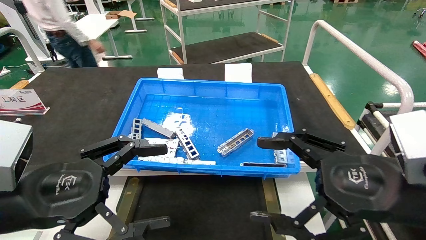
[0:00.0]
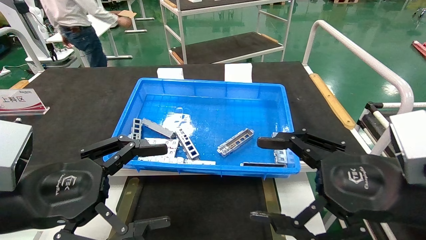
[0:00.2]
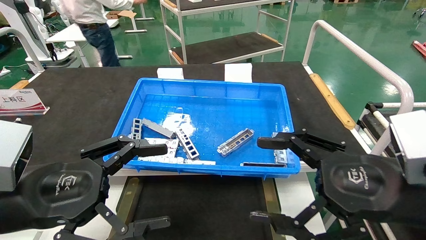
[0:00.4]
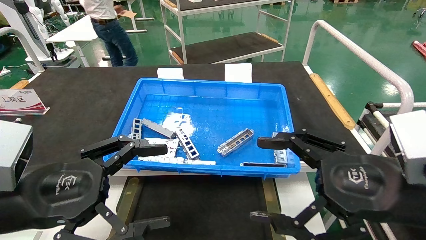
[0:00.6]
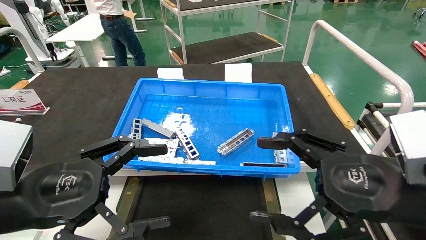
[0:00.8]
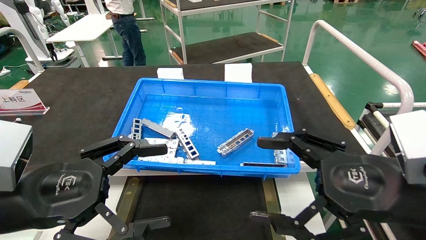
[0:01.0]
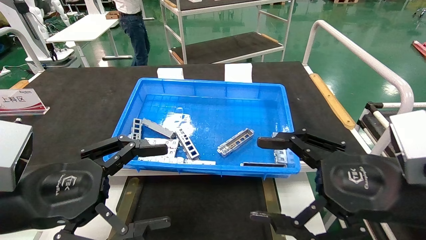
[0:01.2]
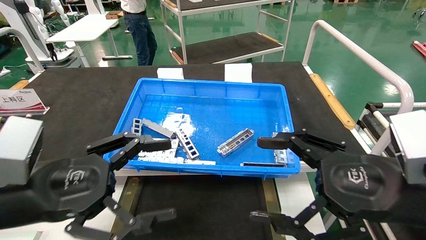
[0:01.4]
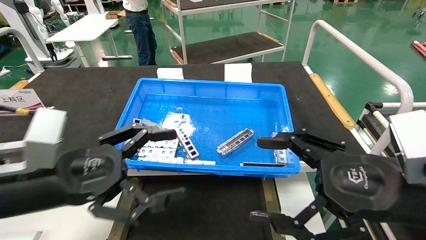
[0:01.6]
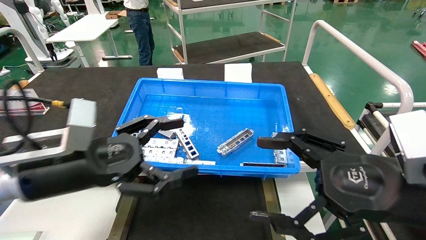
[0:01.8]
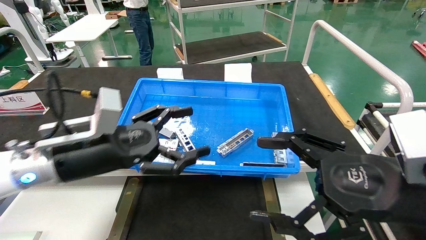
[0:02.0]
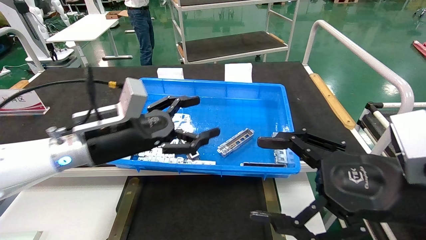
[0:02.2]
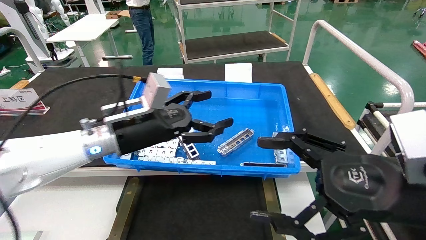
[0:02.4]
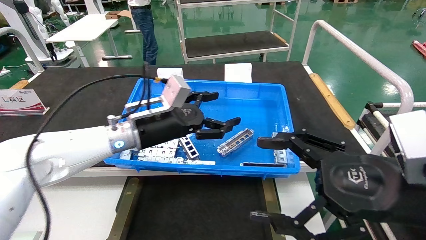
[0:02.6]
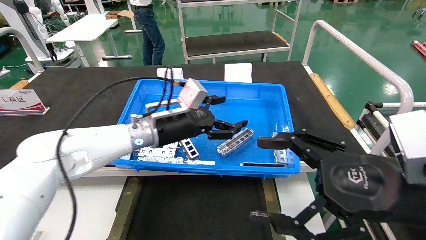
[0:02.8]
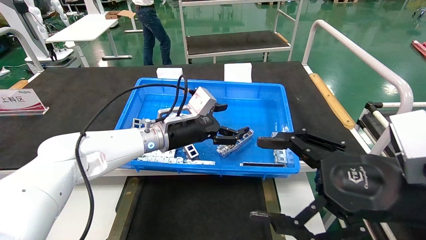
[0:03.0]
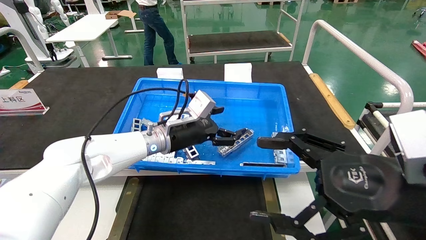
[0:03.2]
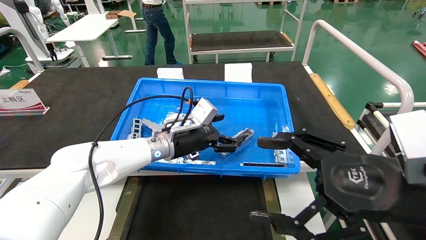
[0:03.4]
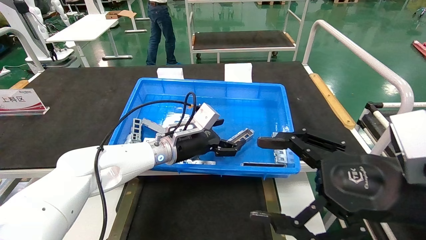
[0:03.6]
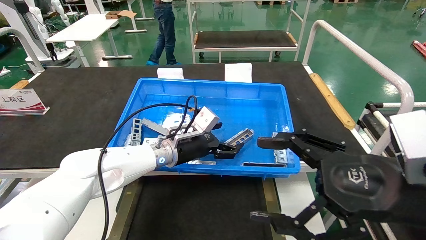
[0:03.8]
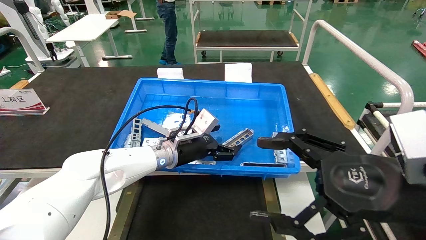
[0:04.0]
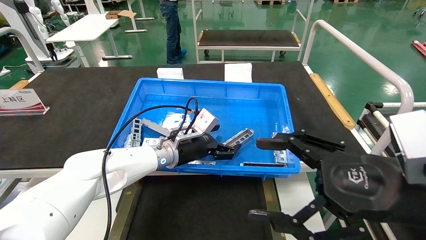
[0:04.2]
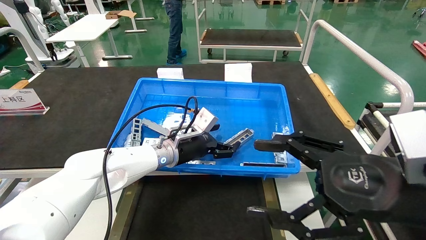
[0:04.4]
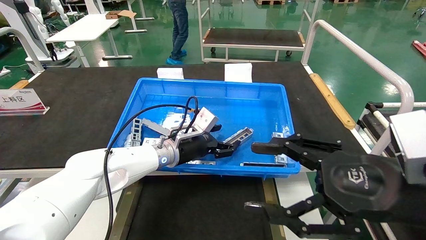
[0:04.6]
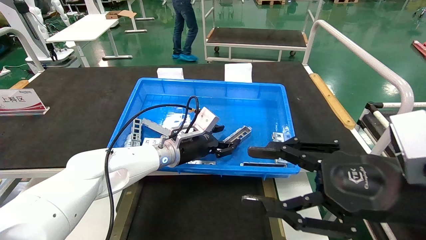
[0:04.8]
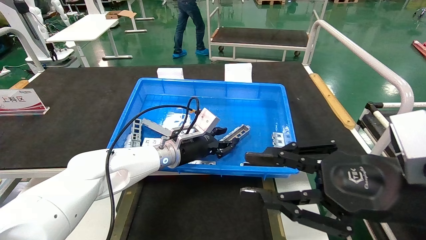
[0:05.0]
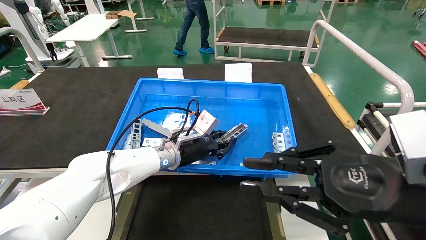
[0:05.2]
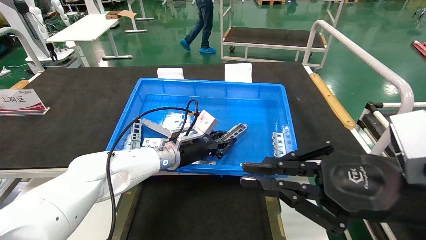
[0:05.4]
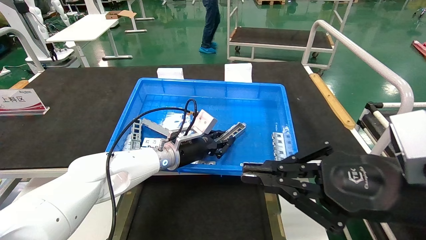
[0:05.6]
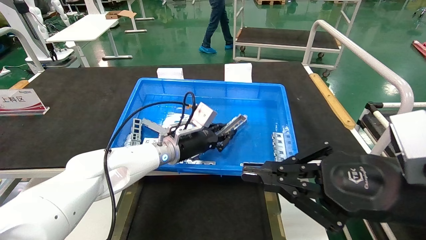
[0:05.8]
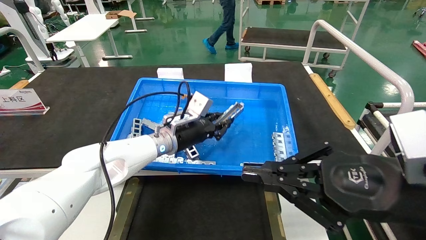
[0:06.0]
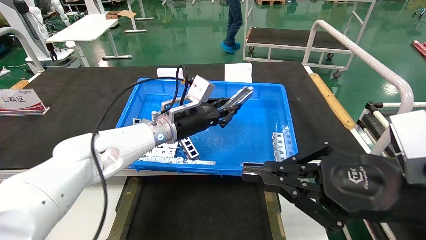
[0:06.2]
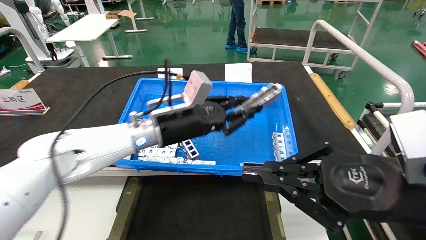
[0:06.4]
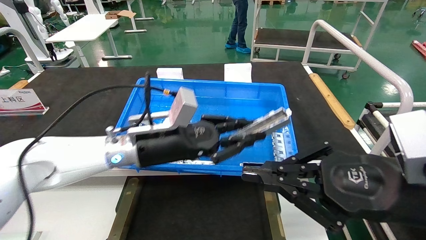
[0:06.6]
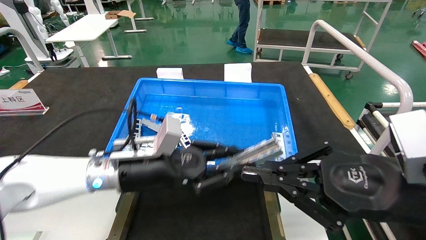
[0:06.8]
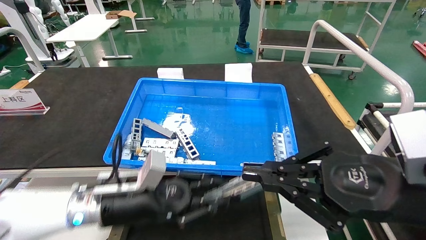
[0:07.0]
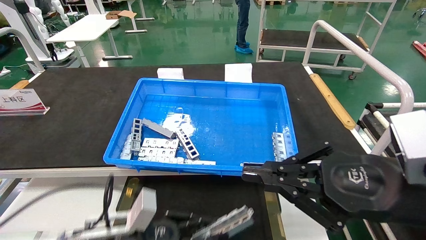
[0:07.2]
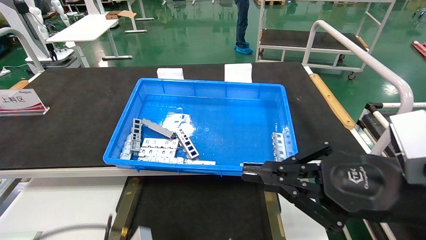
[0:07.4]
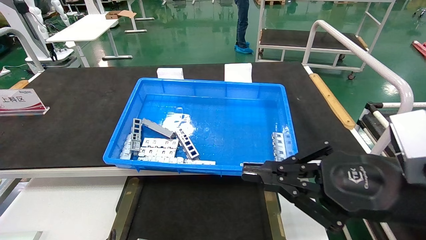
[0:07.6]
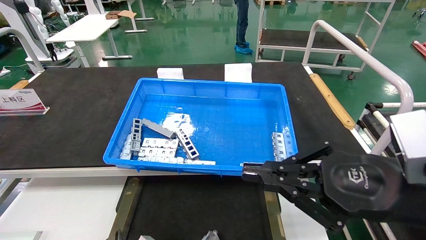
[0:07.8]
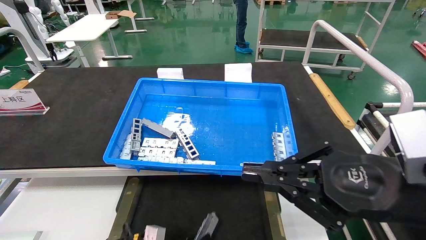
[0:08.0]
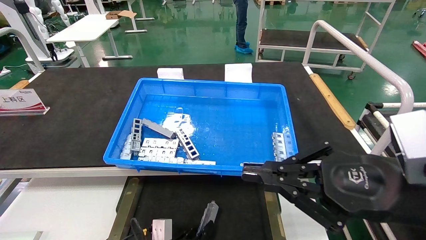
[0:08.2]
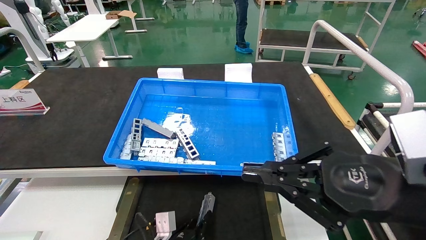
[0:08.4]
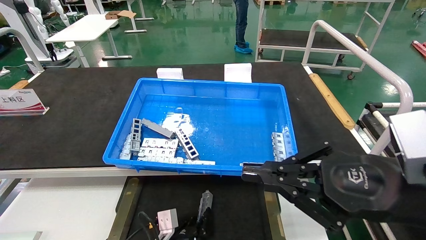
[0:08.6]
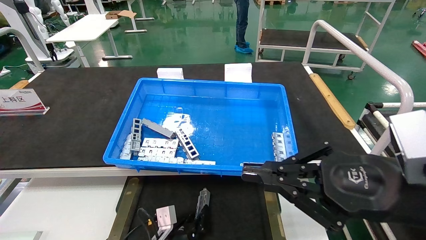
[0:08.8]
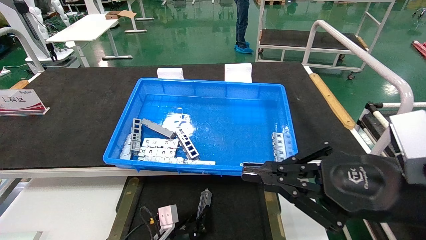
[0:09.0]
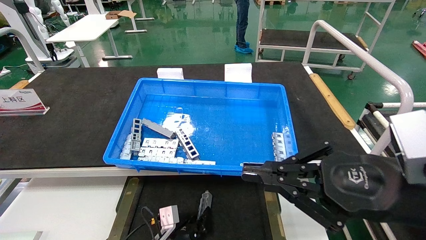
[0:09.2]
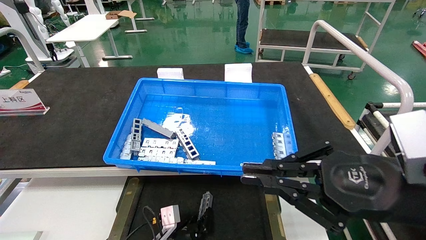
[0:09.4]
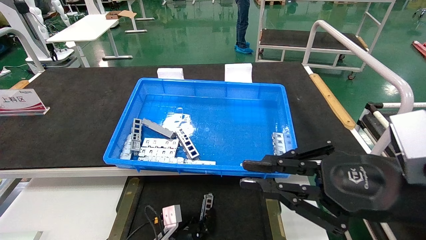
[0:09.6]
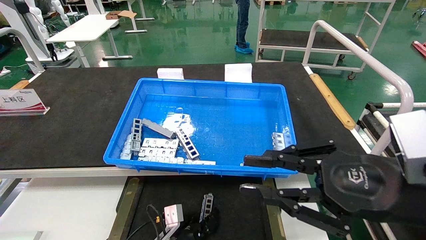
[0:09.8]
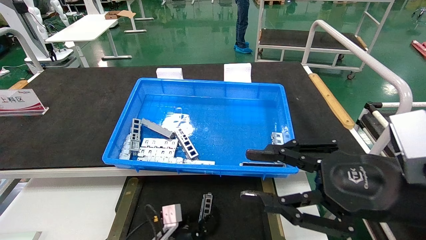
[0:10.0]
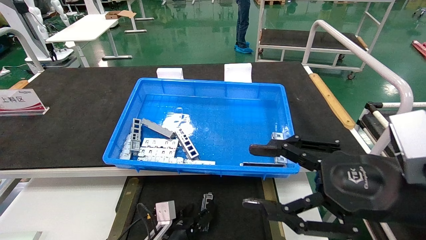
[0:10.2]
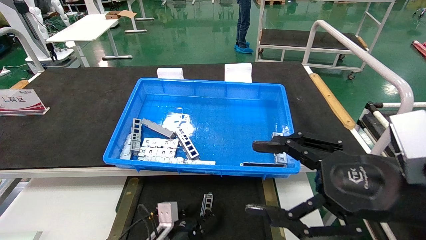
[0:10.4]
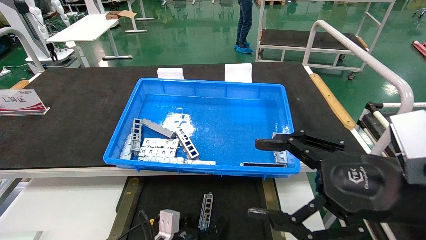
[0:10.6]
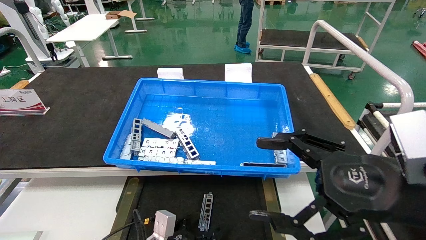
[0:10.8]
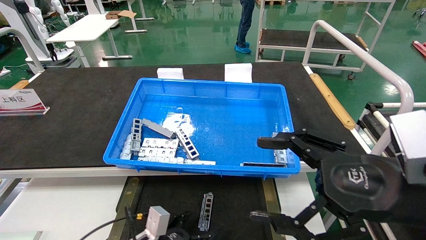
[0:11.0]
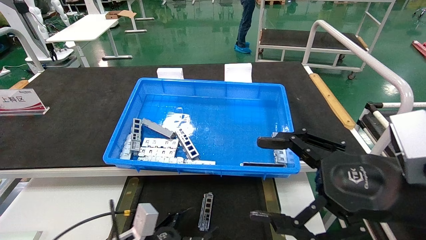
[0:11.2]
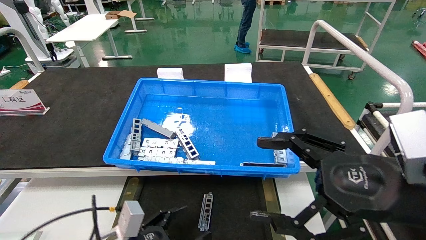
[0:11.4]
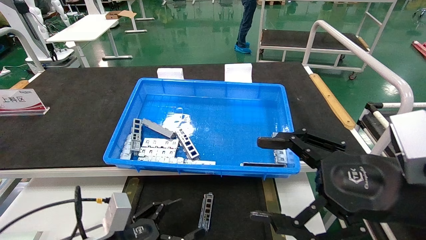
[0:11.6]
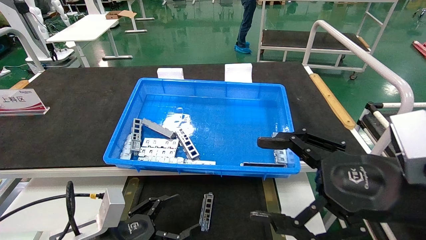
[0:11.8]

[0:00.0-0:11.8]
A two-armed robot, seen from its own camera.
Task of the whole recording: Grasp the part with one hand and place it on the black container.
Step, 0:01.6 to 0:05.4: Pick up the front USB bracket from the feeding area.
Step, 0:05.6 to 0:10.0: Place the front USB bracket into the box.
0:00.0 to 0:01.4: There are only small adjustments of the grippers.
0:01.4 to 0:03.0: The left gripper goes some 30 cm forward and to the right.
0:03.0 to 0:04.4: The left gripper travels downward by approximately 5 cm.
0:04.4 to 0:06.0: The right gripper closes its fingers. Meanwhile the left gripper closes up.
0:06.0 to 0:07.4: The left gripper goes roughly 30 cm backward, downward and to the left.
0:07.4 to 0:08.8: The left gripper shifts approximately 15 cm downward, forward and to the right.
0:08.8 to 0:10.4: The right gripper opens its fingers, while the left gripper opens its fingers.
0:10.4 to 0:11.8: The left gripper goes roughly 20 cm upward, to the left and backward.
